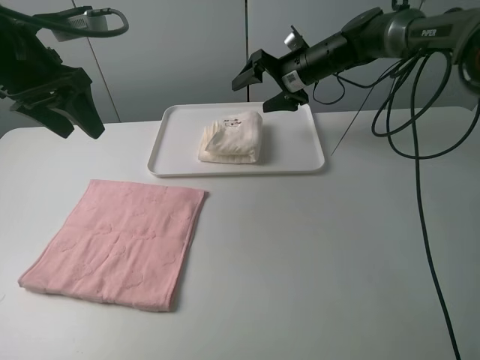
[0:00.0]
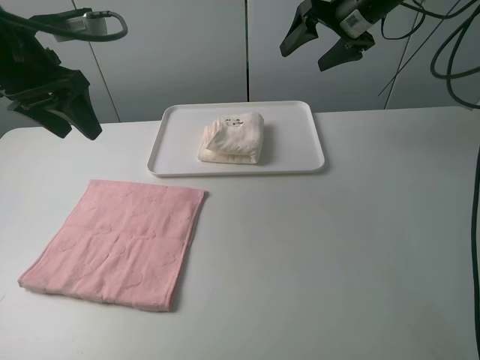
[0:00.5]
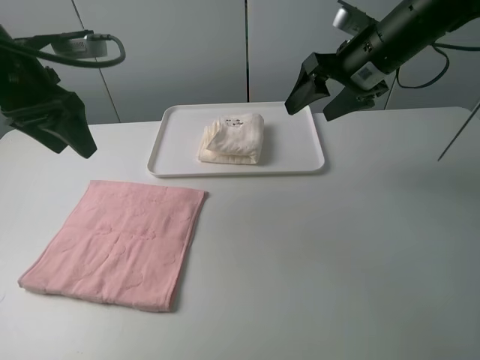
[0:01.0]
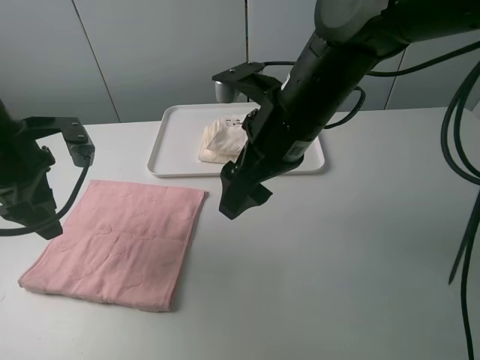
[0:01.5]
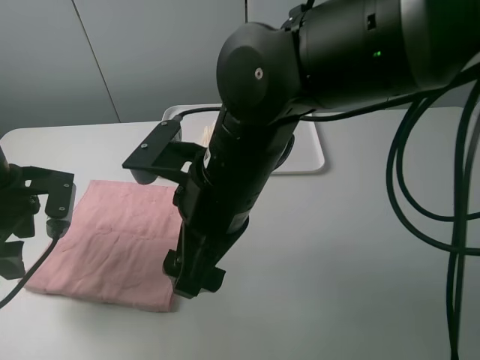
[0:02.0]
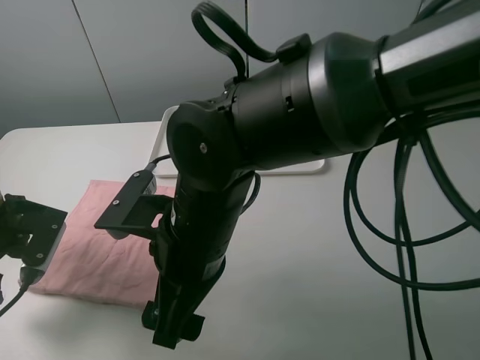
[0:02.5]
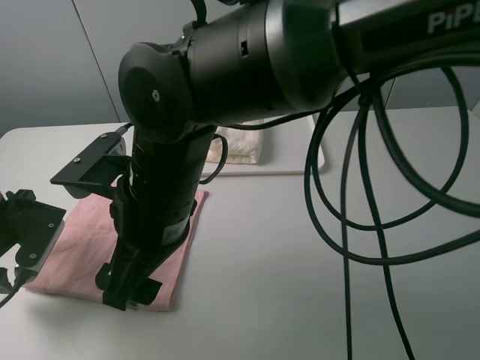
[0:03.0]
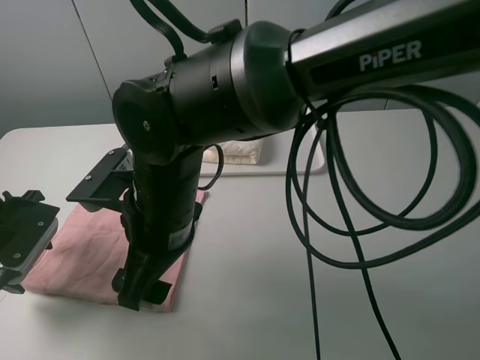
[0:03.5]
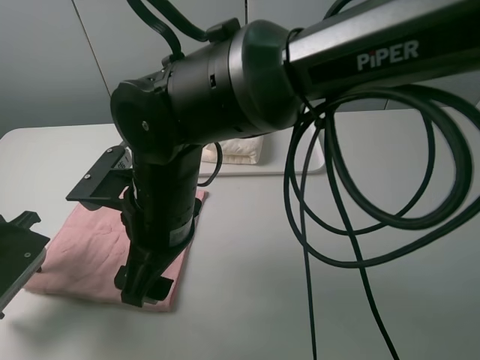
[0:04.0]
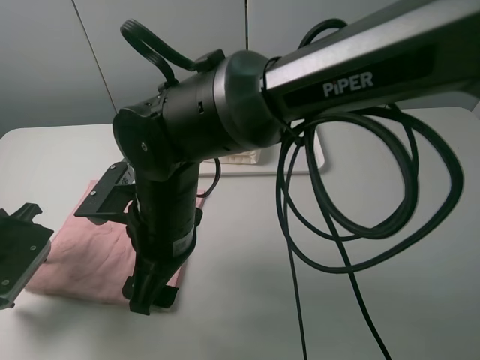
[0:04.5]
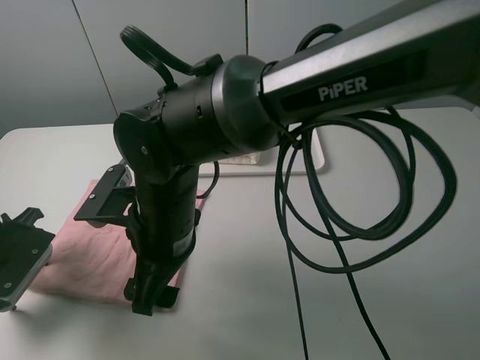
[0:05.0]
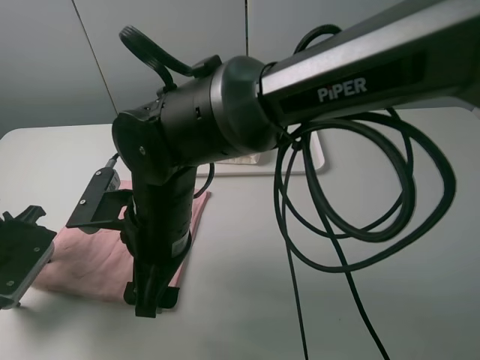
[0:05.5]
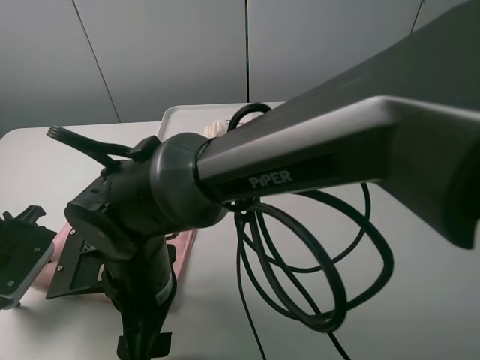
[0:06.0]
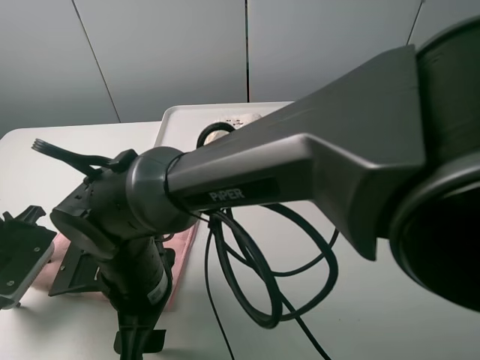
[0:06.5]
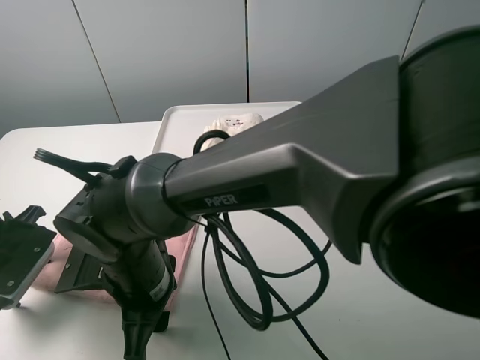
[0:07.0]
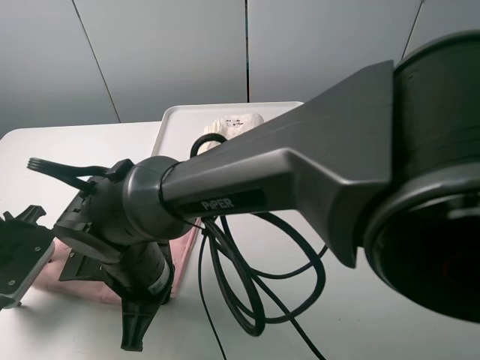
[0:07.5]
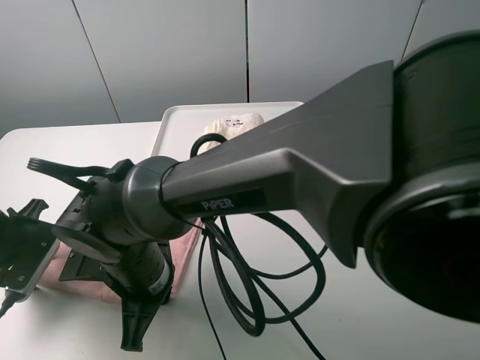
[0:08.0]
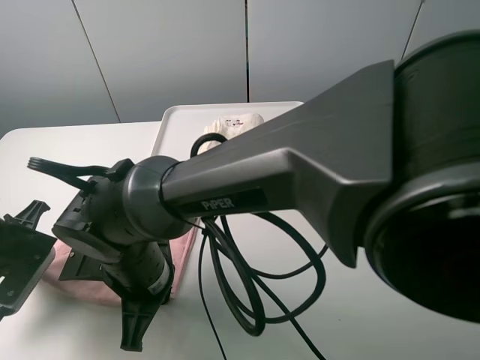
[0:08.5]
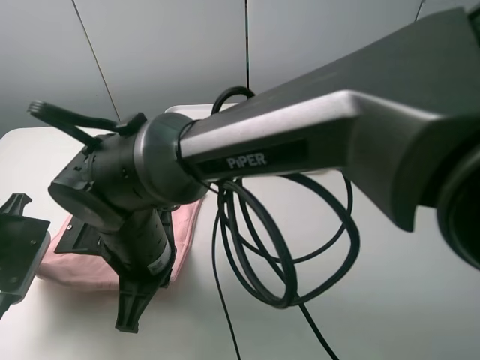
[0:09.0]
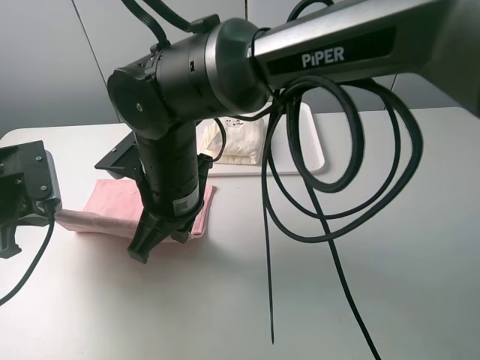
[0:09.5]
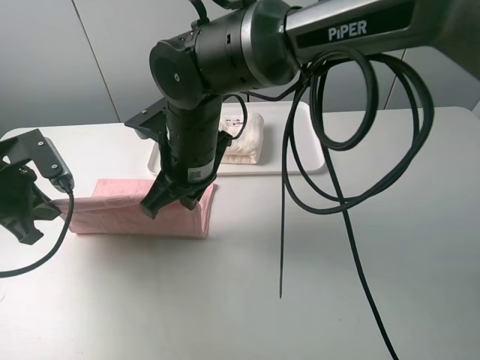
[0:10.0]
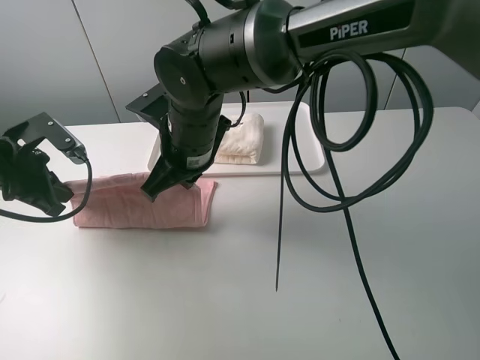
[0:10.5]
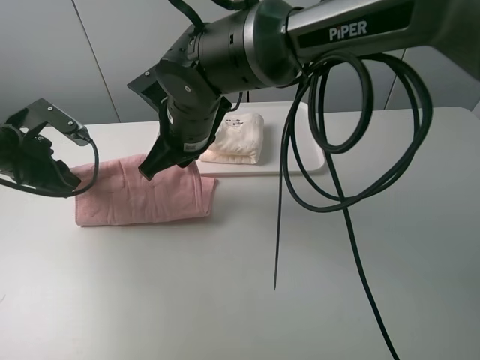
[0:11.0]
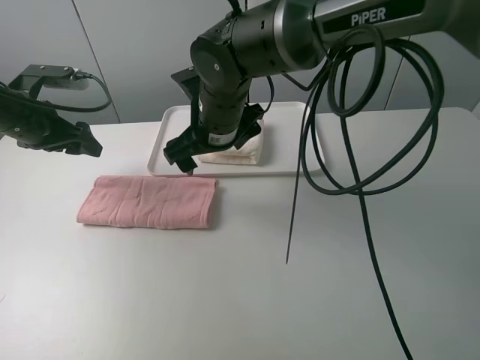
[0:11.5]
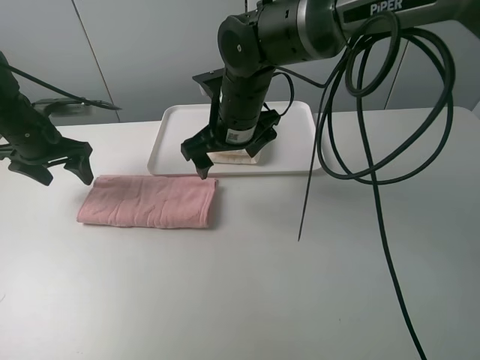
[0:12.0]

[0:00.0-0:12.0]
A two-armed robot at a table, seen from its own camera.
Task of the whole recording: fold one of the towels by two grippers and place it on the tray,then fold another towel by two grippers and place it on the folded towel.
Step, 0:00.5 to 0:08.0: Grasp the pink towel with the left gripper.
Step, 0:09.0 to 0:11.0: Fold the pink towel upwards with the left gripper.
0:00.0 to 0:02.0: The left gripper goes approximately 15 cm downward and backward; the right gripper travels backward and to the left by approximately 35 cm.
0:02.0 to 0:04.0: The right gripper is displaced to the left by roughly 5 cm; the left gripper moves about 5 cm.
0:04.0 to 0:06.0: The right gripper goes approximately 5 cm downward.
0:06.0 to 0:08.0: The right gripper closes its fingers.
0:08.0 to 0:10.0: The right gripper shifts some 15 cm forward, upward and to the right; the left gripper moves upward, about 5 cm, and closes its fingers.
0:10.0 to 0:12.0: The left gripper shifts approximately 15 cm forward, and opens its fingers. Meanwhile the right gripper goes some 10 cm forward and to the right, and opens up.

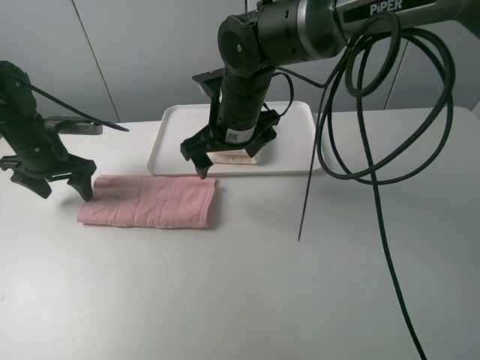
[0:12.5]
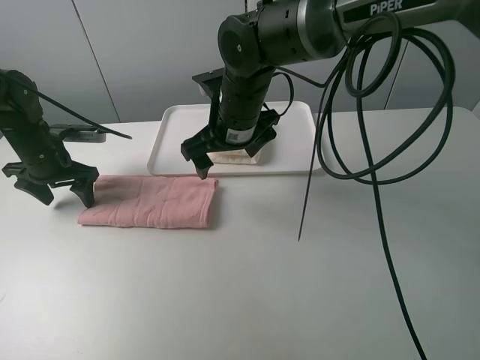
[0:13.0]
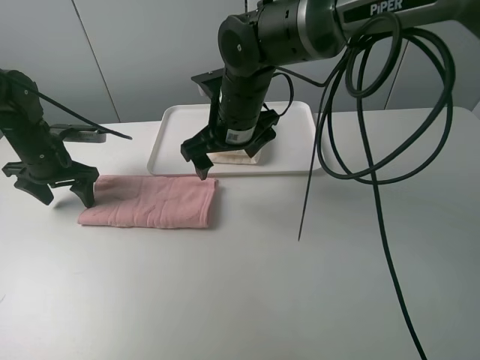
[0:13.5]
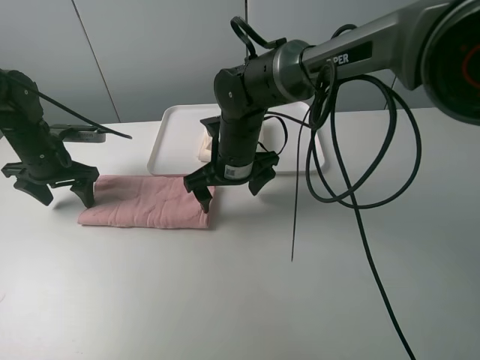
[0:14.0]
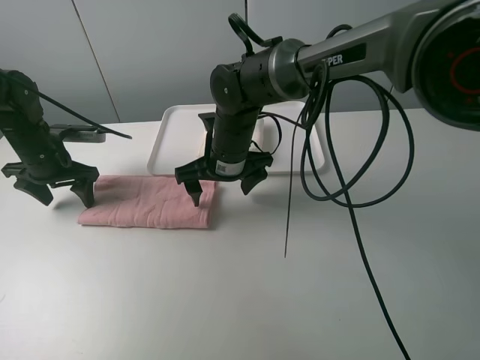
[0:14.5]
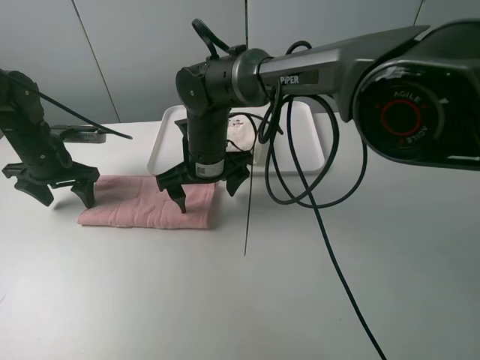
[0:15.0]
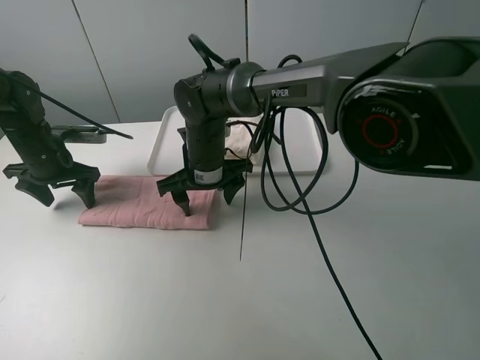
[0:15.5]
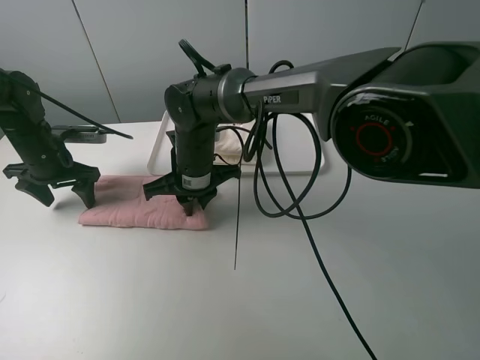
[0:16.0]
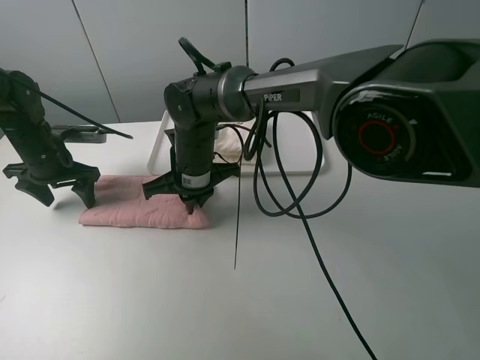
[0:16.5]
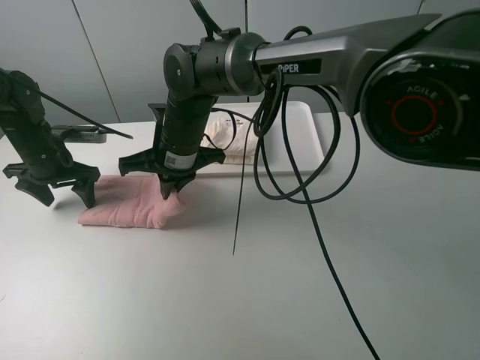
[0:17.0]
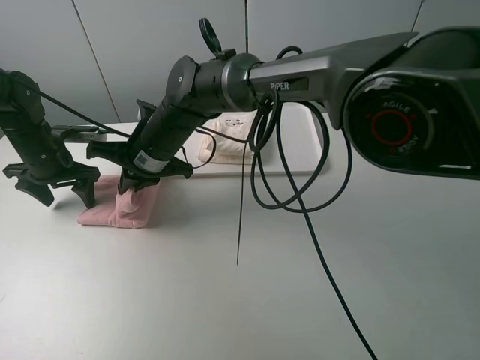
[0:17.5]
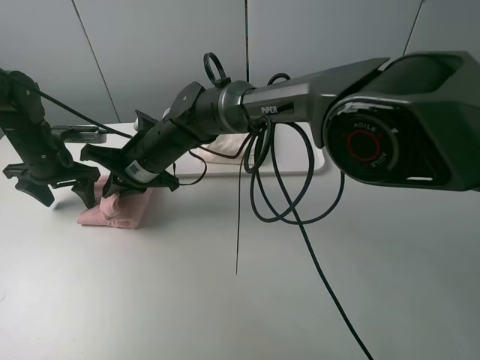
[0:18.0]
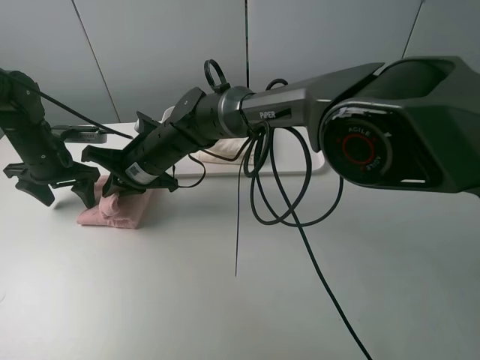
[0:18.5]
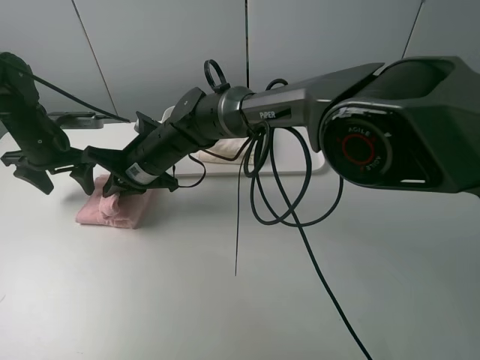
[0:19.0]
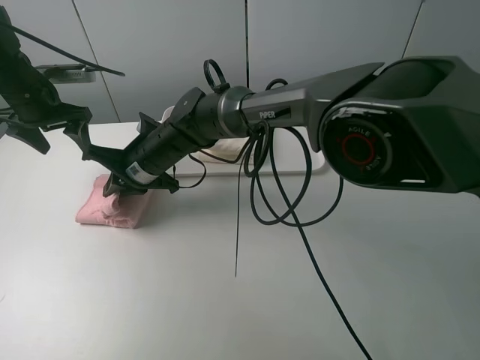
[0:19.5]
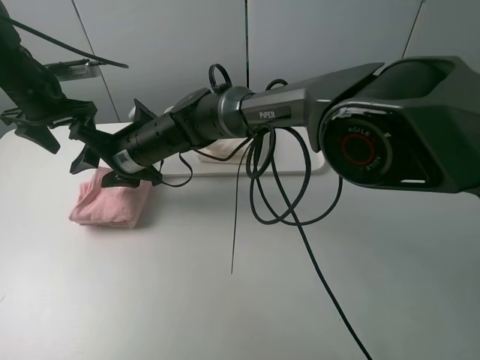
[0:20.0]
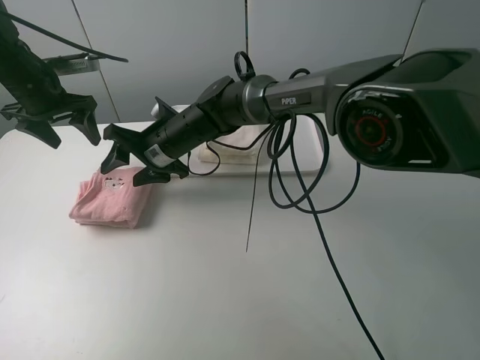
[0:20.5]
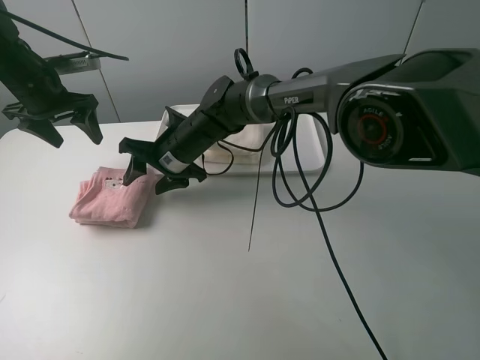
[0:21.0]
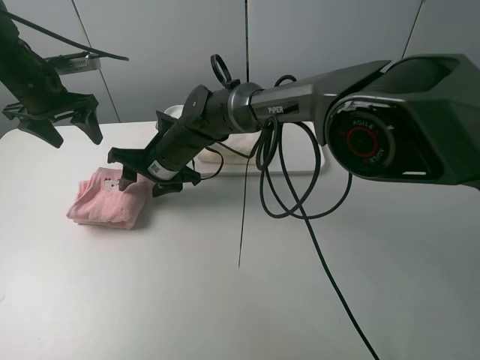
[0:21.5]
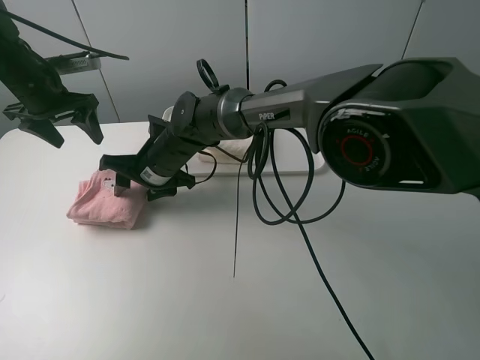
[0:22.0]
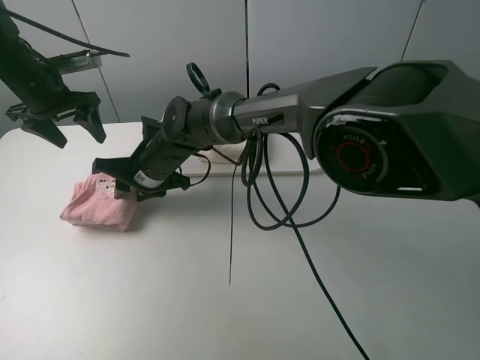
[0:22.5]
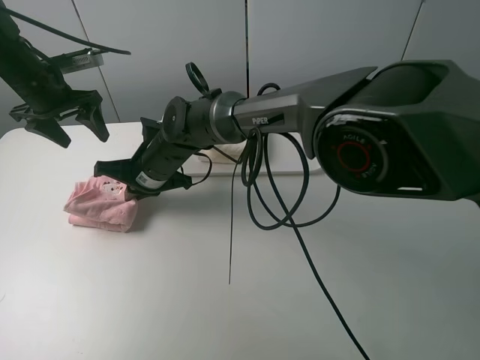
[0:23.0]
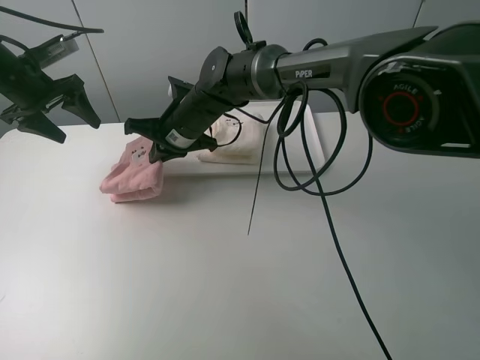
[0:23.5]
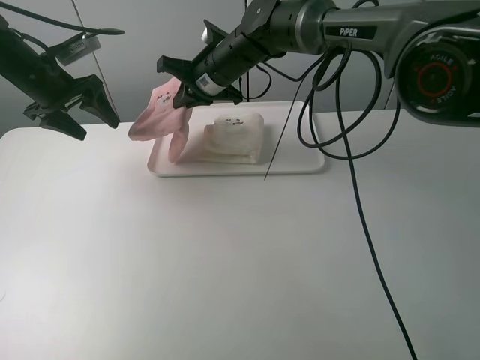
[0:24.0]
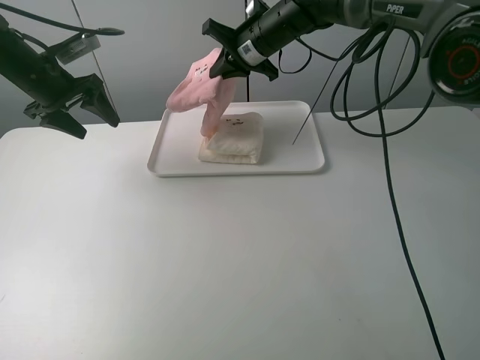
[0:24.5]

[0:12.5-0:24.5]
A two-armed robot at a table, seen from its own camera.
Task of the whole recording: fold one of the towels by two grippers and place it on the tray,then fold another towel by two grippers and place it on the folded towel.
Step, 0:13.5 to 0:16.0: Grasp the pink towel with the right gripper.
Step, 0:16.5 to 0:20.0: Fold the pink towel from right to left with right gripper.
Step, 0:20.5 to 0:23.0: Grasp the pink towel with the right gripper.
0:12.5 to 0:14.5: The right gripper moves downward, approximately 5 cm.
0:14.5 to 0:16.5: The right gripper moves to the left, approximately 5 cm, and closes up.
0:16.5 to 0:18.5: The right gripper shifts approximately 5 cm to the left.
0:18.5 to 0:20.5: The left gripper is displaced upward by approximately 10 cm; the right gripper opens.
0:22.5 to 0:24.5: The right gripper is displaced to the right, forward and upward by approximately 25 cm.

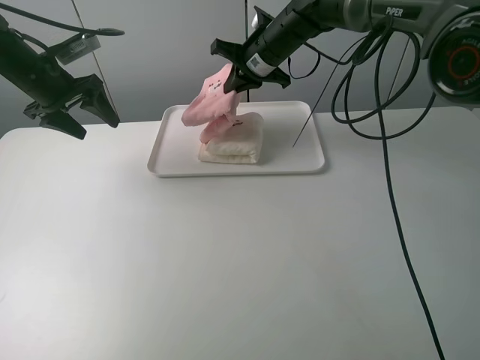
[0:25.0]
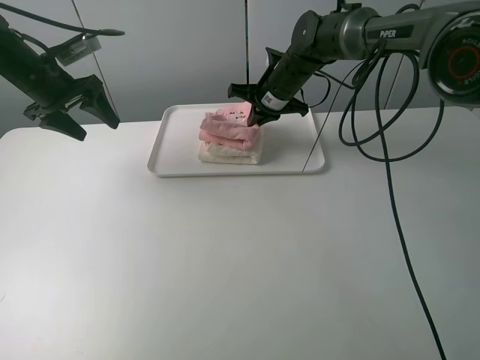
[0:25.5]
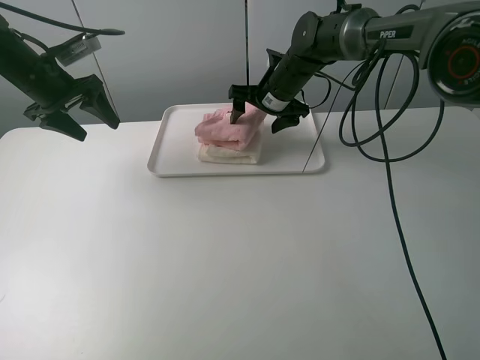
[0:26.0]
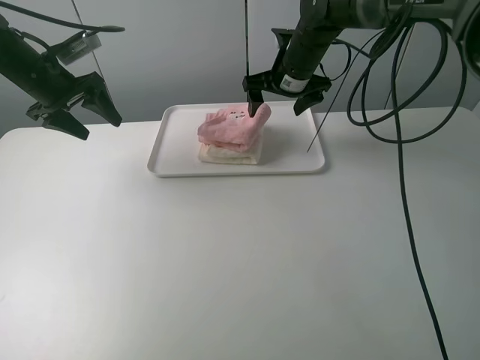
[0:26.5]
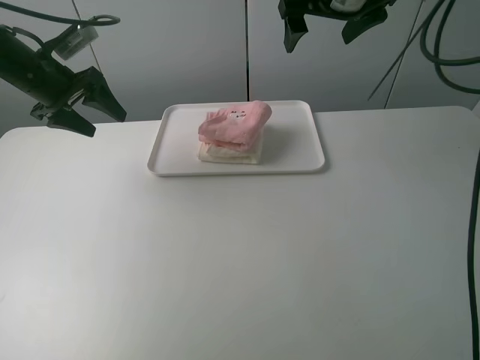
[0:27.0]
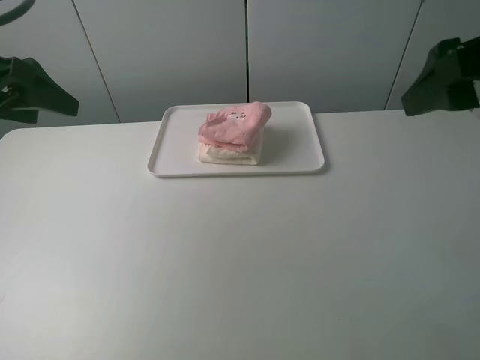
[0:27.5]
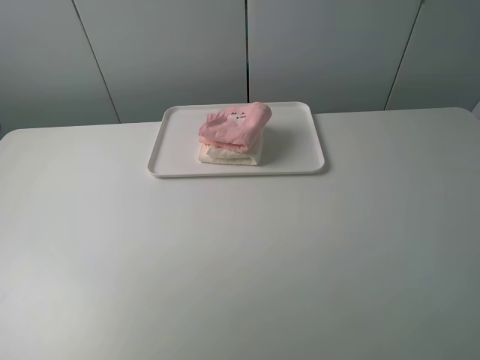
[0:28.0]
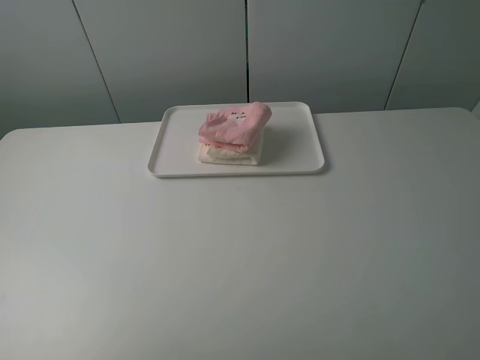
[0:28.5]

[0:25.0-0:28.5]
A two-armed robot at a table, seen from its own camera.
Task of the whole recording: fold one of the towels by two grippers and place it on the tray,then fold another towel by two grippers and place it on the folded towel.
0:25.0 to 0:27.0: The right gripper shifts approximately 20 cm upward, backward and to the right, and opens its fingers.
0:27.0 to 0:28.5: The right gripper travels backward and to the right by some 40 cm. The left gripper shifts approximately 35 cm backward.
